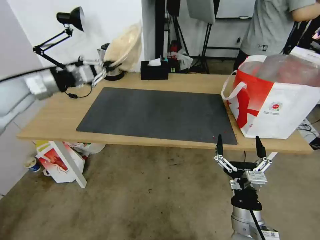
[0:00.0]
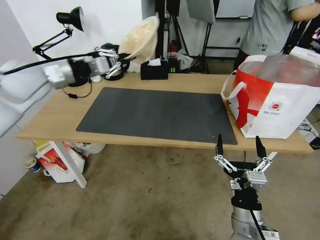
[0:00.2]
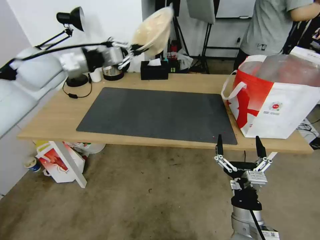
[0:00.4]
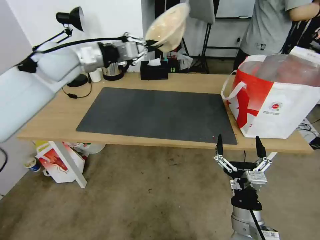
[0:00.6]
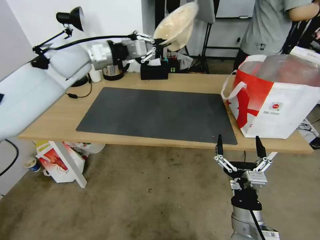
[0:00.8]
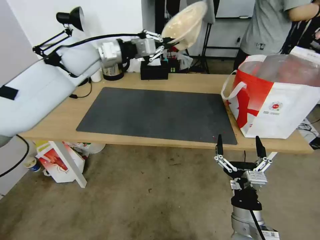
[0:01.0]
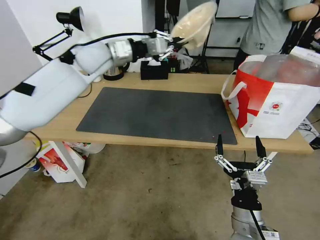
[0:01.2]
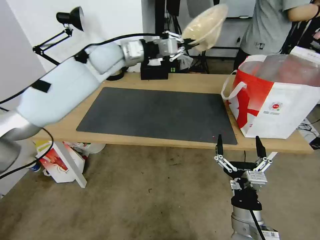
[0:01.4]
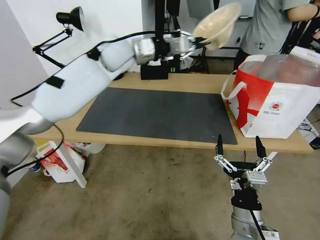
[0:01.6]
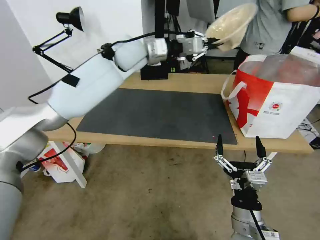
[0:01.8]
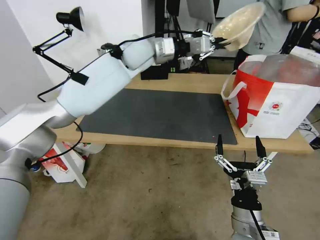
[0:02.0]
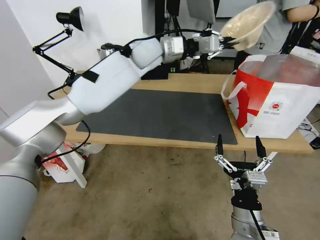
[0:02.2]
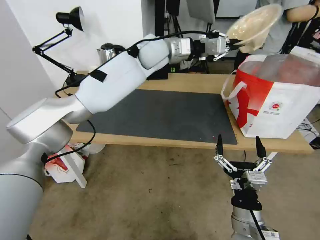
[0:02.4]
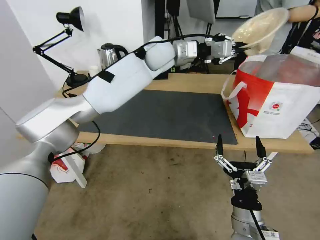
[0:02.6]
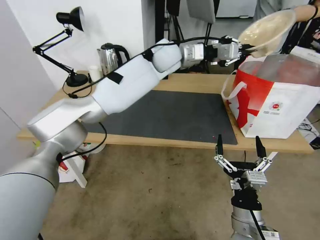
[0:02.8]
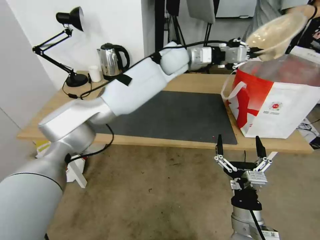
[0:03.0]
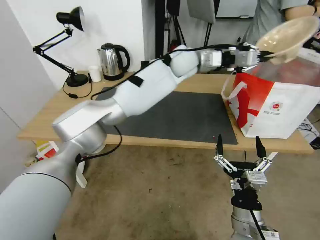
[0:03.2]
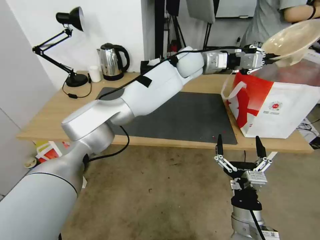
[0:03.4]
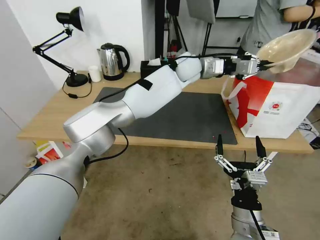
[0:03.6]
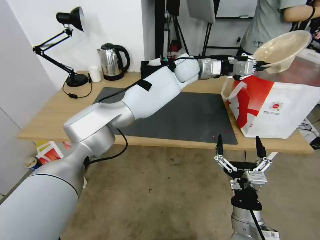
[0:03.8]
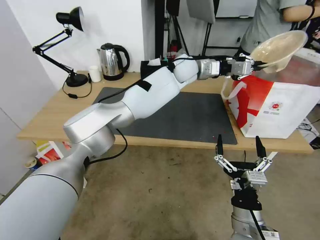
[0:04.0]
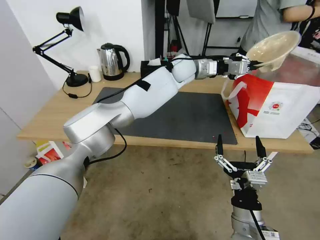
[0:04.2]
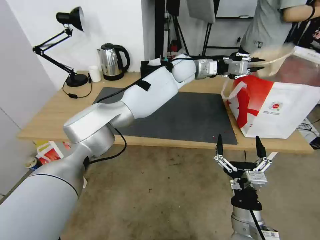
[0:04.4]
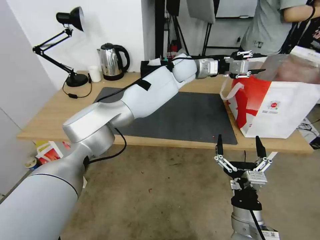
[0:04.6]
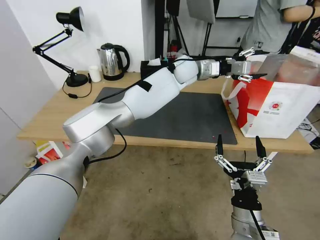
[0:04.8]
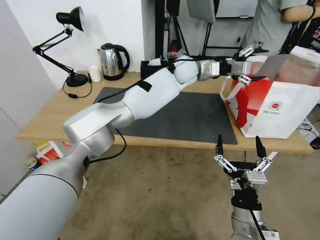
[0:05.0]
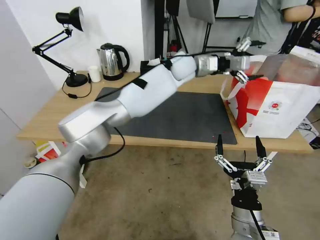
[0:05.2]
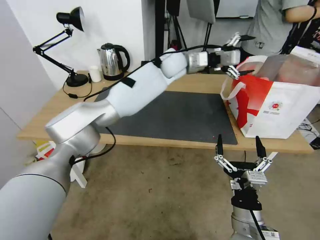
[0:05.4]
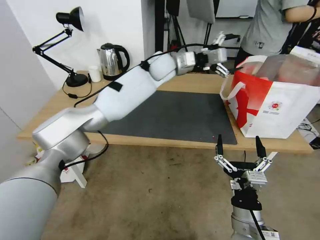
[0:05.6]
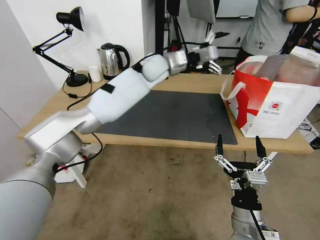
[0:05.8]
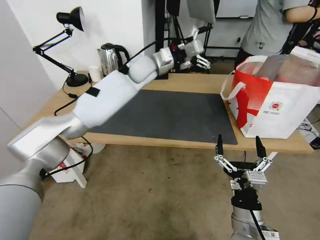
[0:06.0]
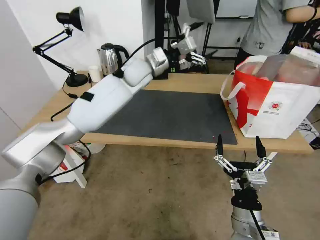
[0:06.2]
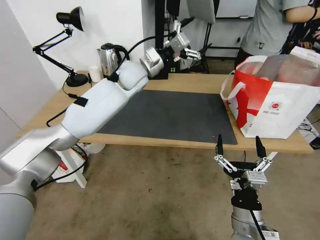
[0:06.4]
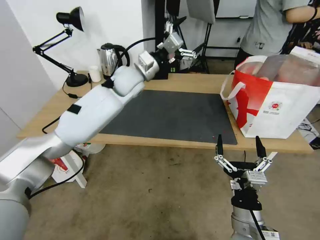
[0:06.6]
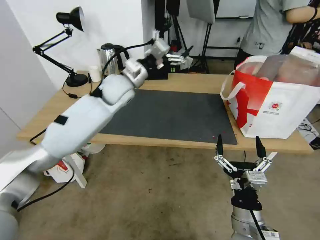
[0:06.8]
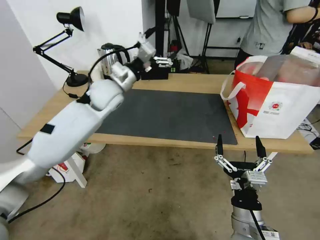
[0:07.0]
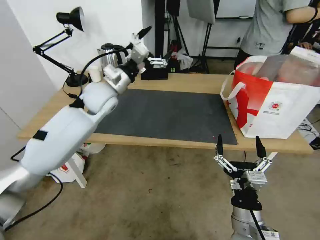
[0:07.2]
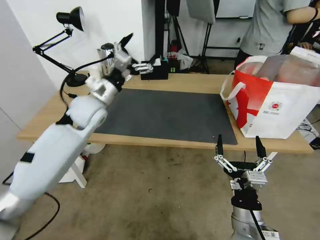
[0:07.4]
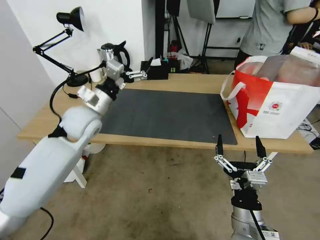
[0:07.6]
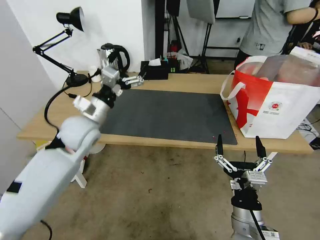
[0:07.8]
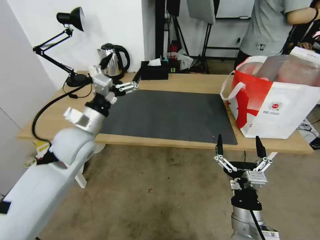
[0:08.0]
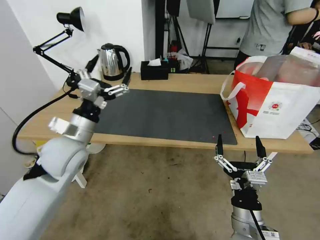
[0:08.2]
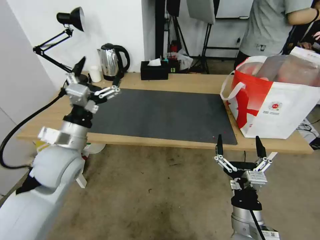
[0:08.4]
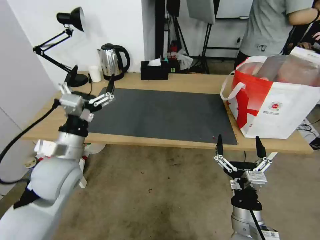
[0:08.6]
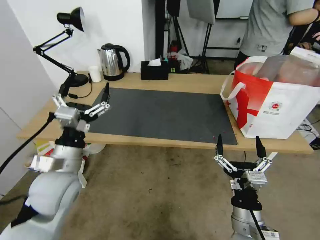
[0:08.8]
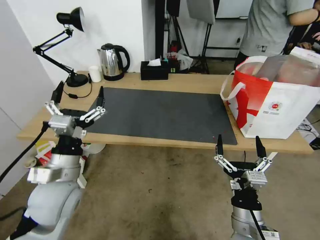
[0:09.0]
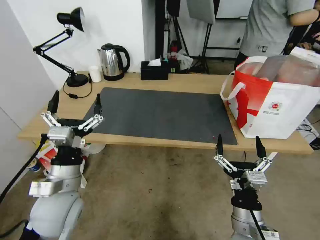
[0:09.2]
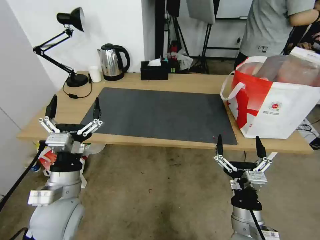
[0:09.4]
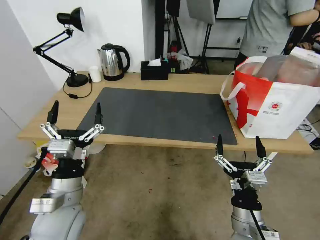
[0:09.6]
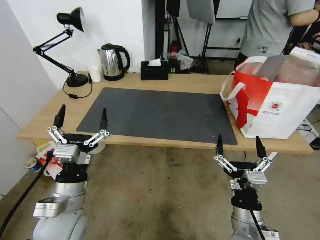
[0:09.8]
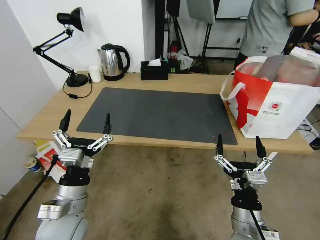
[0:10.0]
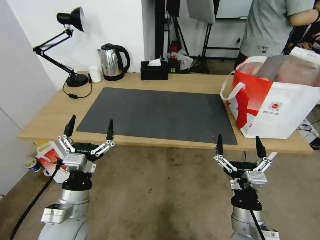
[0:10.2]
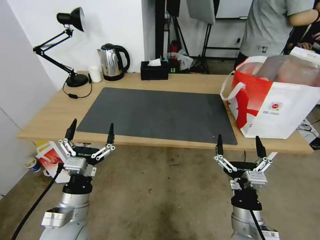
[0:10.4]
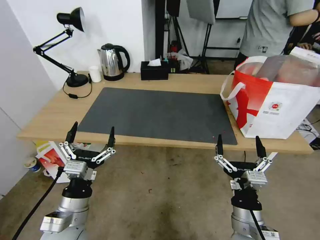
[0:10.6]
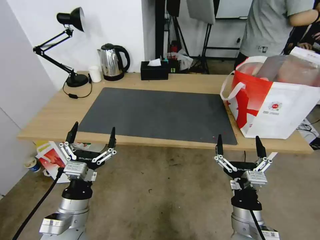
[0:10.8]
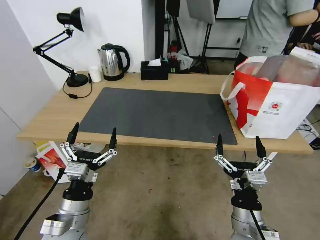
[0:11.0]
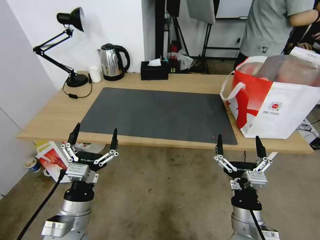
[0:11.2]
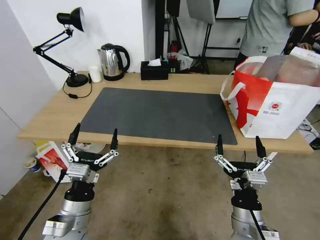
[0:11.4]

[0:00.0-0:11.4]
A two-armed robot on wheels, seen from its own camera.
Task of the whole recording: Pick up the trash from the table and place it into the takeout bag.
0:00.0 to 0:01.4: The left gripper heads to the right and forward, covering about 25 cm.
0:01.4 to 0:02.8: The left gripper travels to the right by some 15 cm.
0:02.8 to 0:04.2: The left gripper heads to the right and downward, covering approximately 10 cm.
0:04.2 to 0:05.6: The left gripper goes roughly 10 cm to the left, and opens up.
0:05.6 to 0:07.2: The left gripper travels to the left and backward by some 20 cm.
0:07.2 to 0:08.6: The left gripper heads backward, covering some 20 cm.
0:08.6 to 0:10.0: The left gripper travels backward and downward by roughly 10 cm.
0:10.0 to 0:11.4: The grippers move only a little.

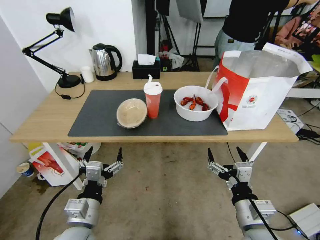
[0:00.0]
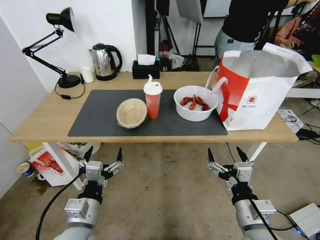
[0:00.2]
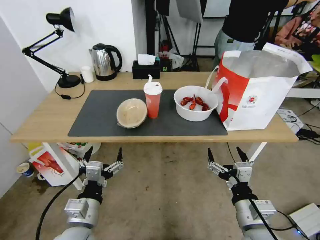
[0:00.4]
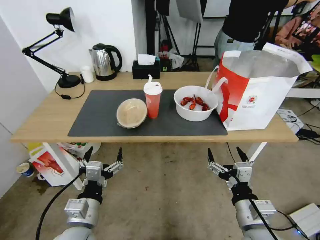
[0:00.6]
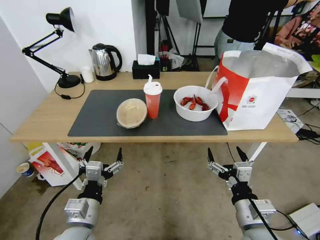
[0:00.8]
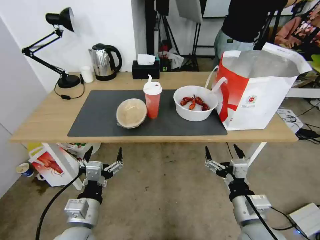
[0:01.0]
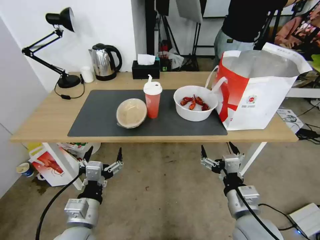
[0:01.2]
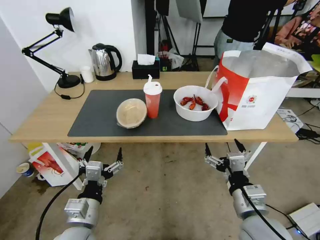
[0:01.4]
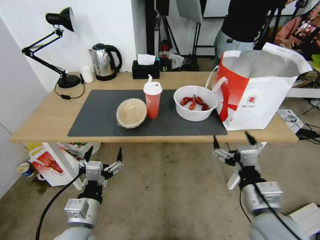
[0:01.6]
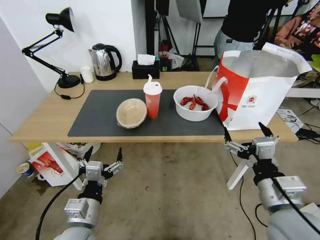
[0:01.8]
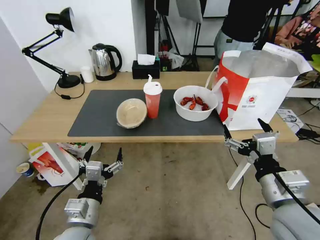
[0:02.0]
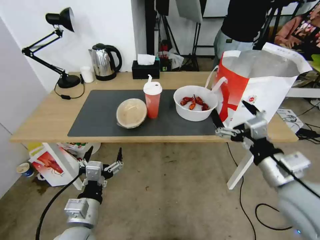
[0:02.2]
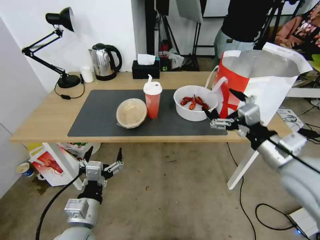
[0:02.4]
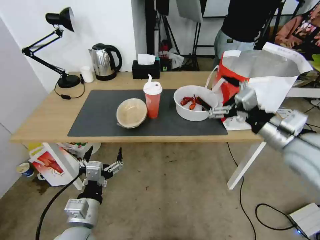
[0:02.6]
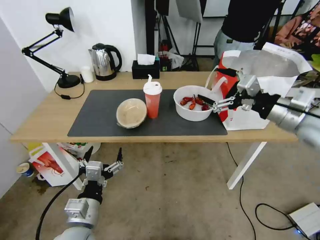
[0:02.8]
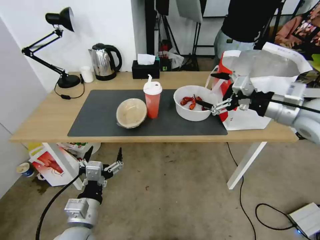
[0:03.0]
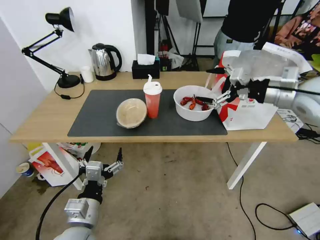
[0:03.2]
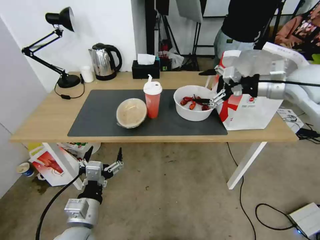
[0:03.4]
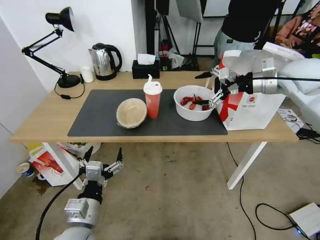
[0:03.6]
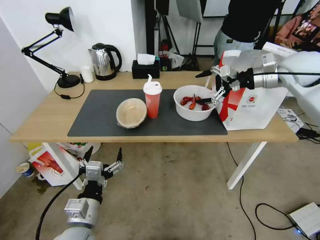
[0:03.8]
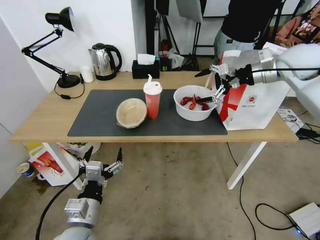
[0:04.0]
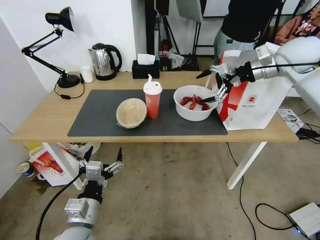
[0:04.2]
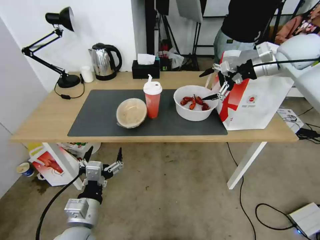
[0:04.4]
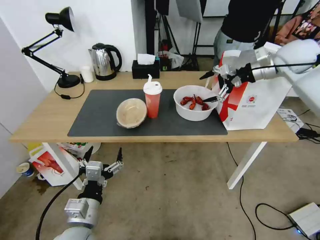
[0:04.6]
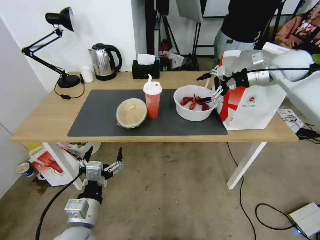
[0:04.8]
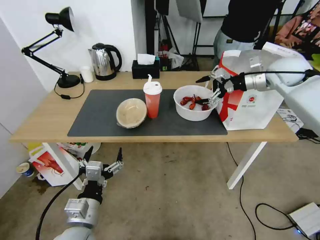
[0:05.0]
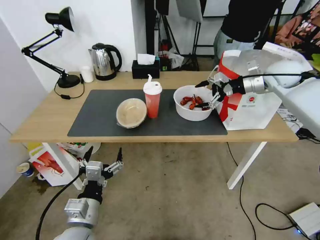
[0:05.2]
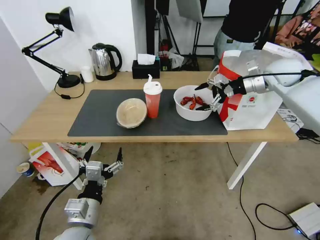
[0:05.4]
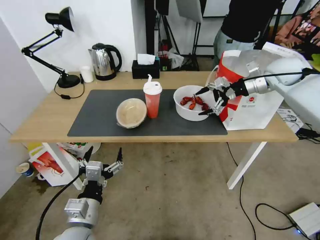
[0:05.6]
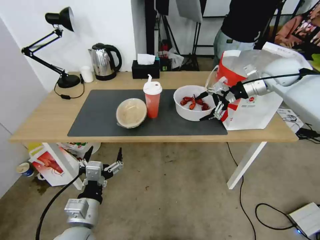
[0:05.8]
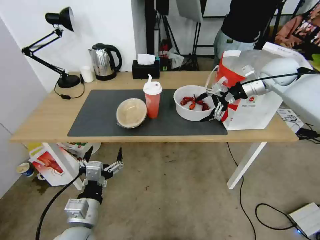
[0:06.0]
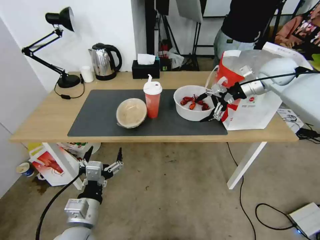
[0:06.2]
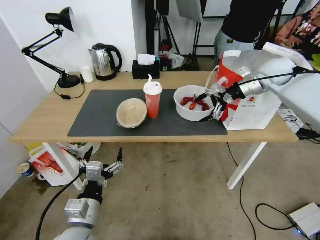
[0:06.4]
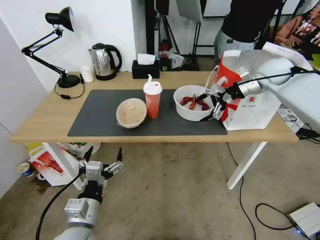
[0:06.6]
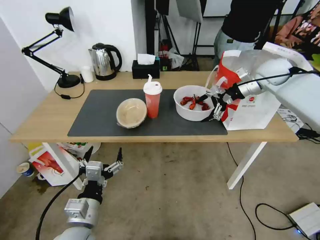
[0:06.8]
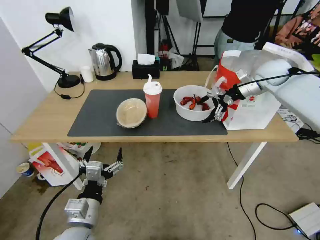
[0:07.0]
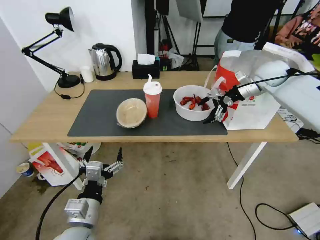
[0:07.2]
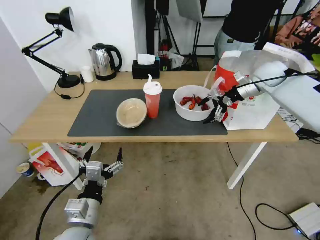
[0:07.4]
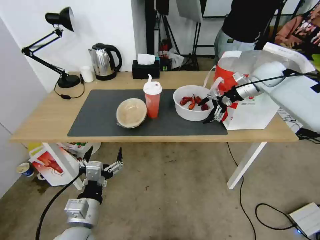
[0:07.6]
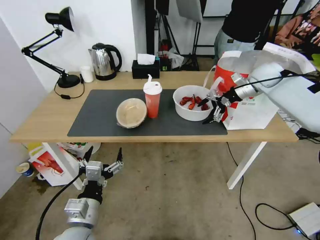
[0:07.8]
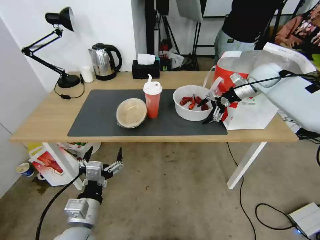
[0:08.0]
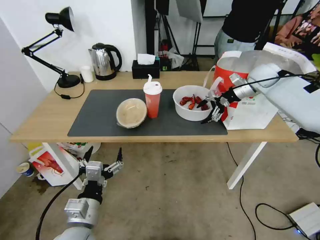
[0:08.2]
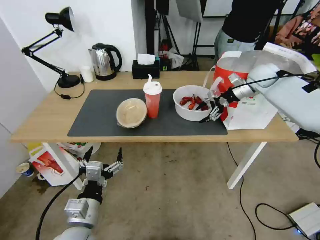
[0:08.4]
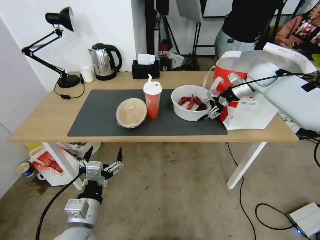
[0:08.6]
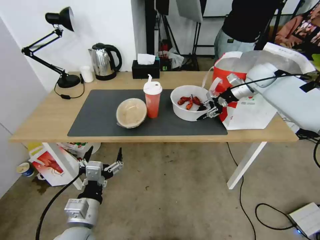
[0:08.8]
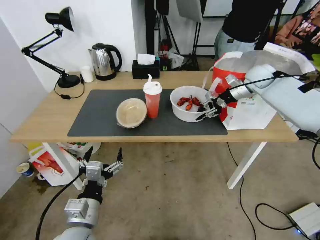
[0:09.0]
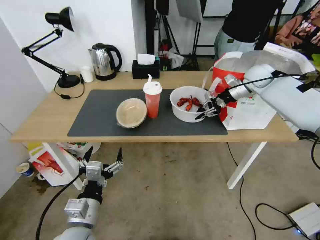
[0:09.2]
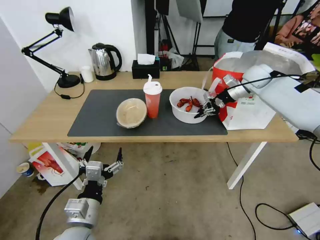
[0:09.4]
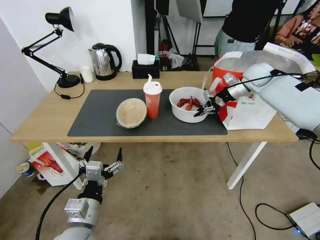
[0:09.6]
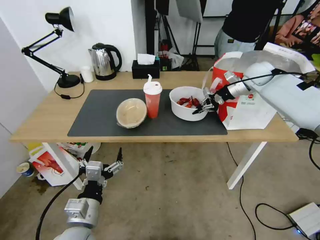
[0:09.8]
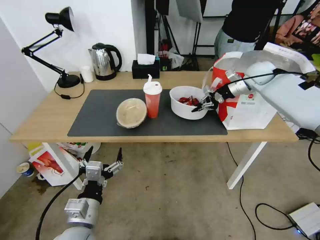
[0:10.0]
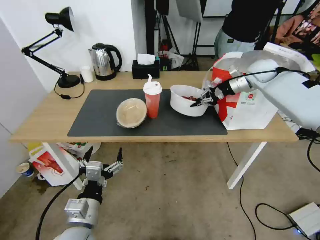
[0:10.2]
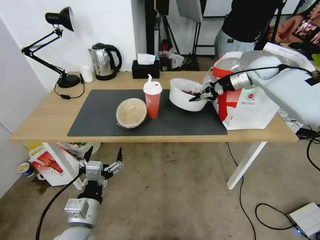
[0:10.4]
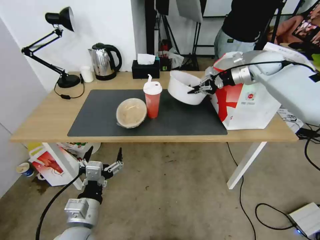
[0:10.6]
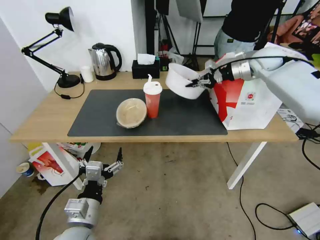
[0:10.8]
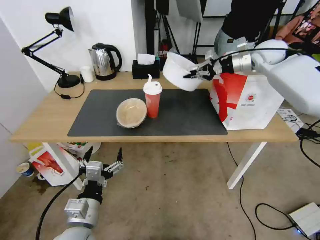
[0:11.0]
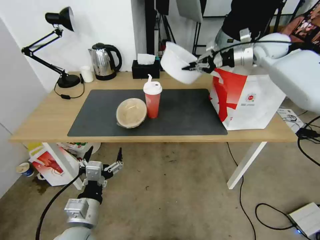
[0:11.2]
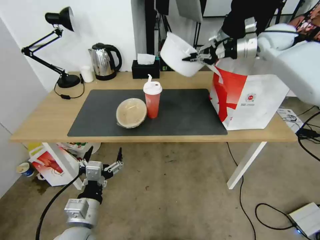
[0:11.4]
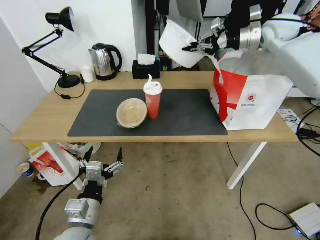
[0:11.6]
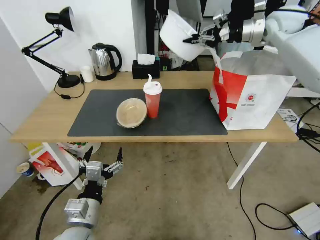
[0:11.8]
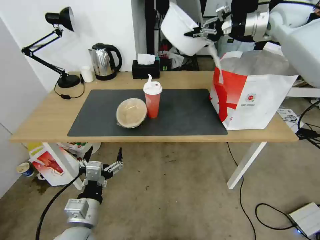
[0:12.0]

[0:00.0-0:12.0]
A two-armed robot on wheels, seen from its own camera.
Task of the whole recording: Pick up the trash from the table and place it into the takeout bag.
0:01.6 to 0:03.0: The right gripper moves forward, upward and to the right, roughly 30 cm.
0:03.0 to 0:04.4: The right gripper moves forward, about 20 cm.
0:04.4 to 0:06.0: The right gripper shifts approximately 5 cm downward.
0:06.0 to 0:07.6: The right gripper shifts by roughly 5 cm.
0:07.6 to 0:09.0: The right gripper closes its fingers.
0:09.0 to 0:10.4: There are only small adjustments of the grippers.
0:10.4 to 0:12.0: The right gripper shifts about 15 cm upward.
